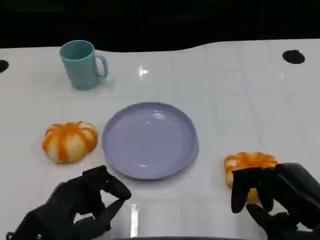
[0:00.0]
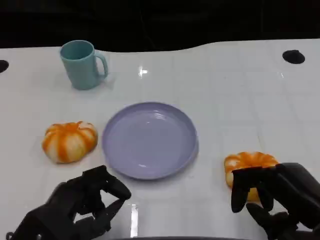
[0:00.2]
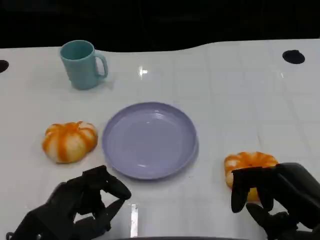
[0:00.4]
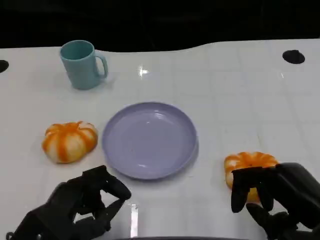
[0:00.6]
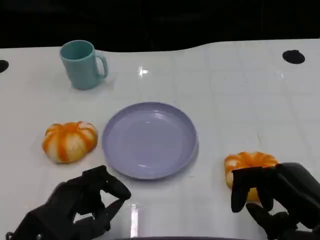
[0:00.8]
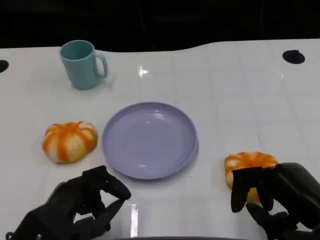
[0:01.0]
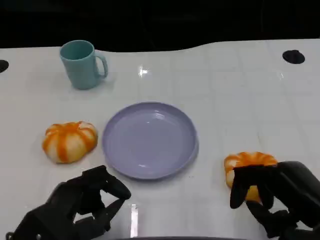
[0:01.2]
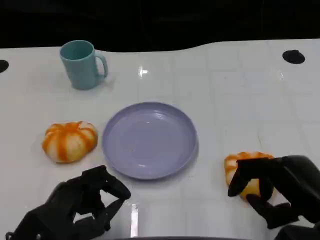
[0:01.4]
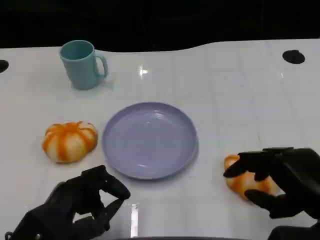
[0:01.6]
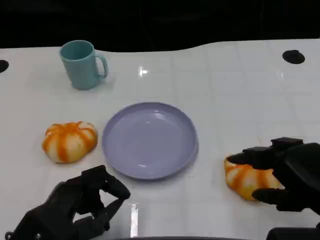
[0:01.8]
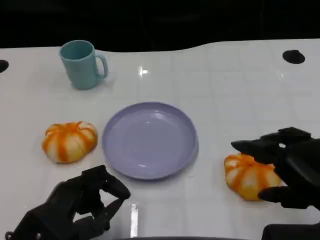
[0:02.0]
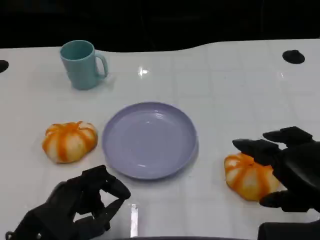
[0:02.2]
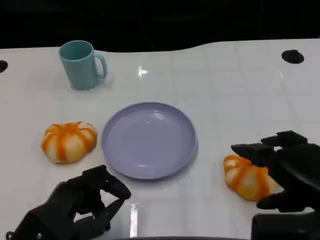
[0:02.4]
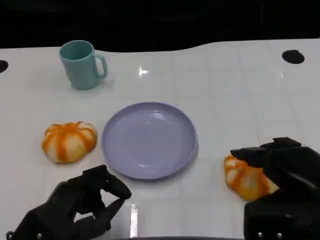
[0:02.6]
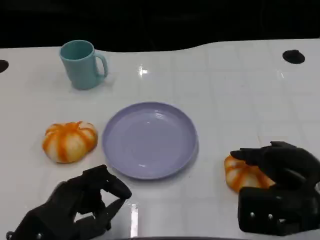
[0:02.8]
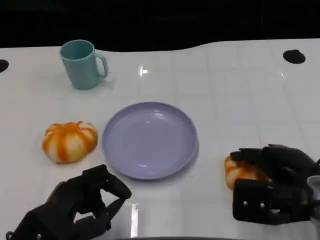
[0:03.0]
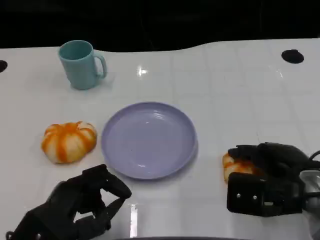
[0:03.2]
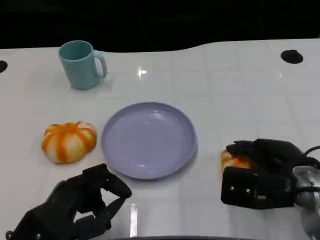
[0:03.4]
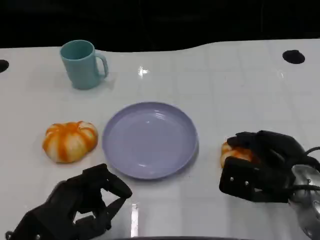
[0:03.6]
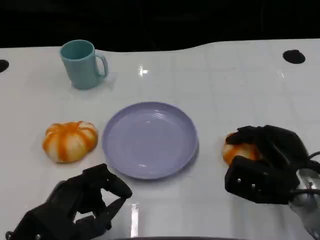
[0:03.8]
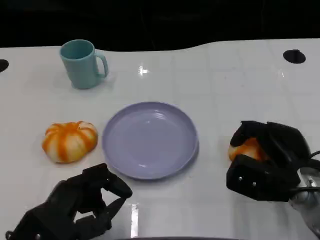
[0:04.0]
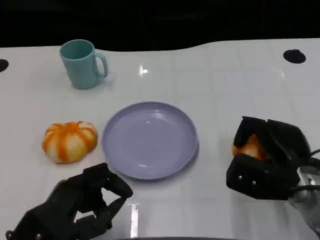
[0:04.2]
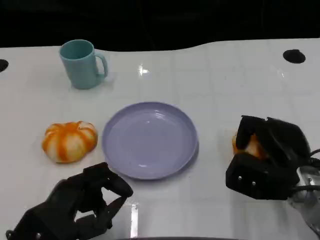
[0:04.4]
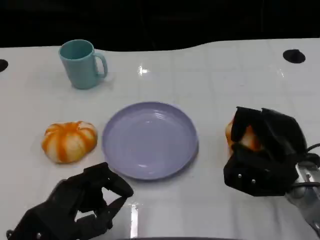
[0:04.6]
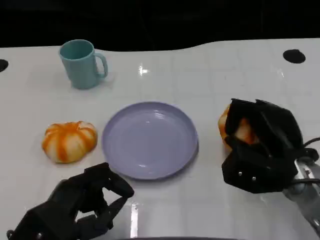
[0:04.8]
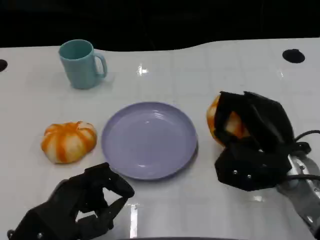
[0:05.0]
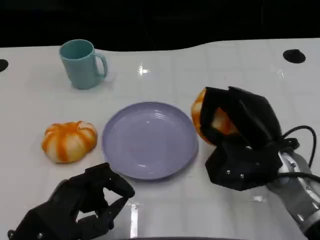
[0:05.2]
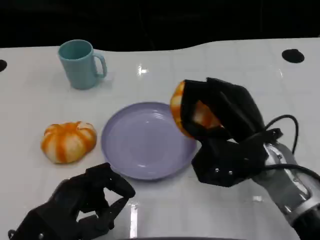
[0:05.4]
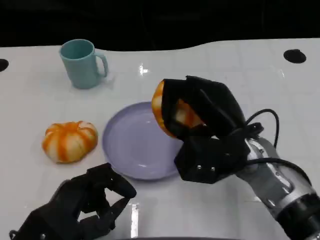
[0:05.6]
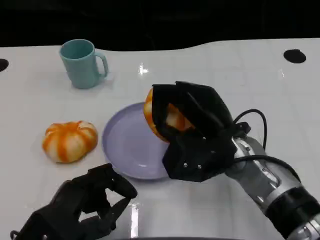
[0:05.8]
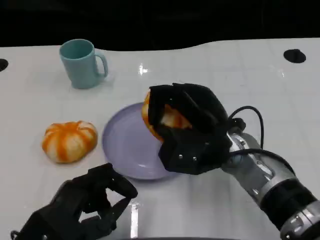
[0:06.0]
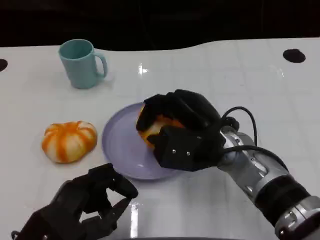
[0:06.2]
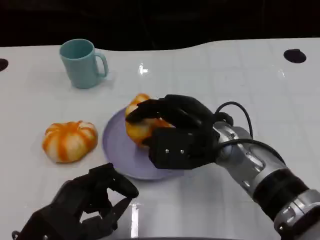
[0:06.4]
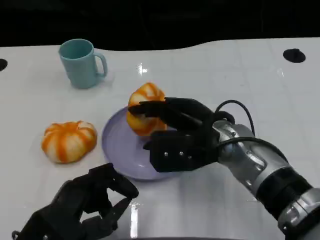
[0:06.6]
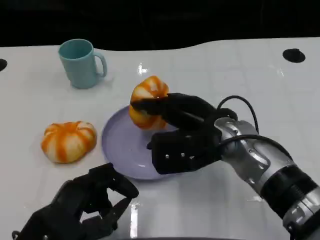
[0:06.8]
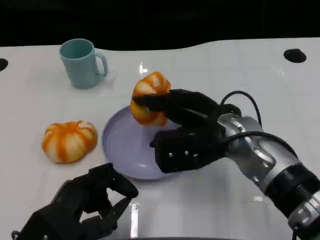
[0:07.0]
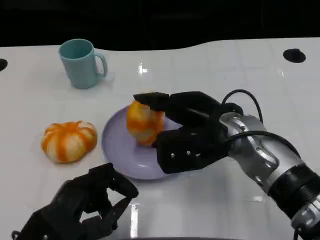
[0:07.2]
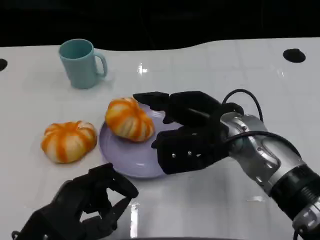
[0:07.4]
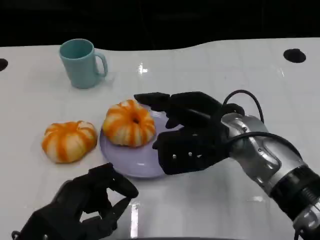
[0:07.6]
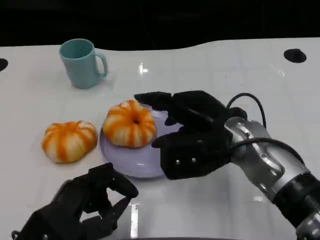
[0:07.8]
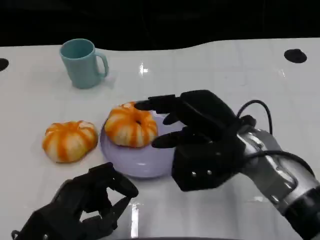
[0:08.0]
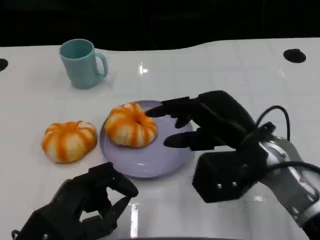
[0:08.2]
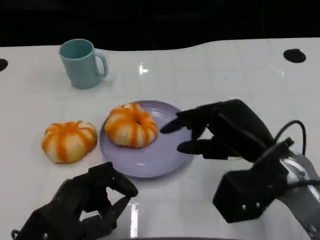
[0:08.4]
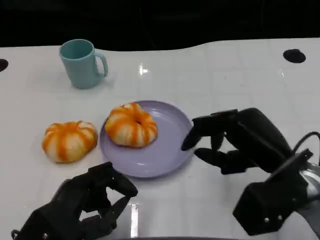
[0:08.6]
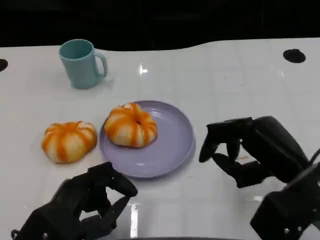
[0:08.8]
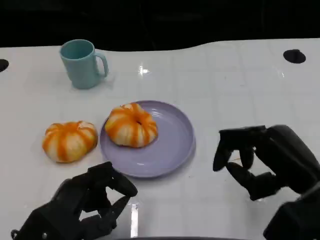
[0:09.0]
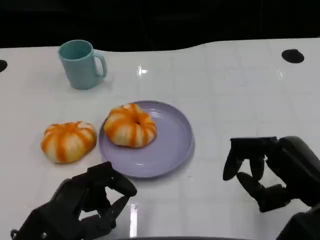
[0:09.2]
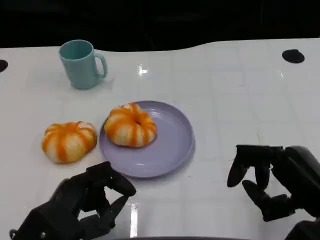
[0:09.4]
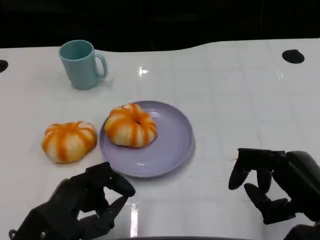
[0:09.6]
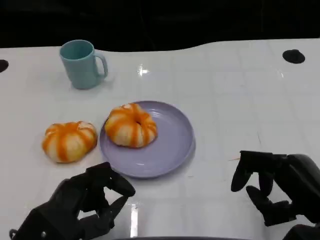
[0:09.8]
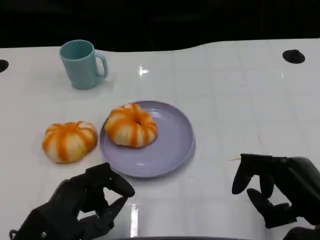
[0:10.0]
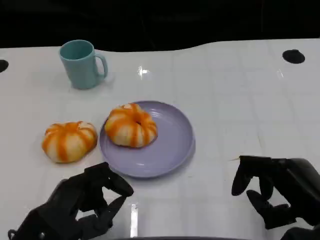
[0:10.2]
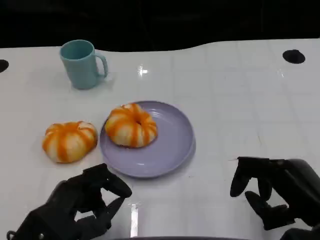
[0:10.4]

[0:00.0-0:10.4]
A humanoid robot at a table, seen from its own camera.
Task of the whole recording: Grasp the bread from the table and place it into the plate.
0.0 to 1.4 s: The hands move only a little.
1.4 to 3.0 s: The right hand heads forward, covering roughly 5 cm.
3.0 to 4.4 s: The right hand ends up roughly 5 cm from where it was.
4.4 to 6.0 s: The right hand heads to the left and upward, covering about 15 cm.
7.4 to 9.0 s: The right hand shifts about 15 cm to the right and backward.
9.0 to 10.4 s: There are only small adjustments of the hands.

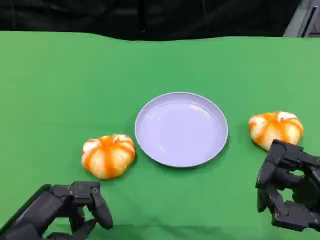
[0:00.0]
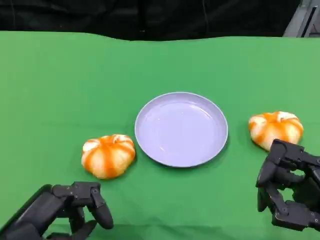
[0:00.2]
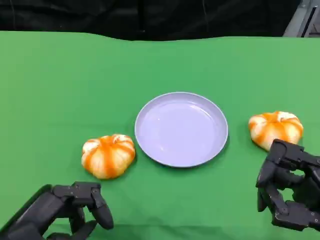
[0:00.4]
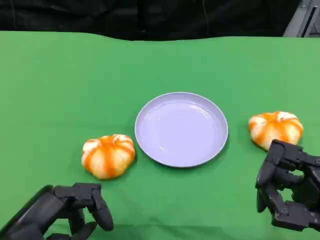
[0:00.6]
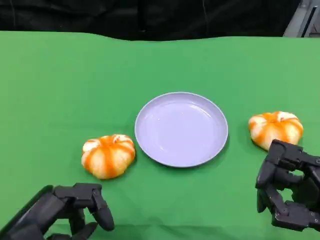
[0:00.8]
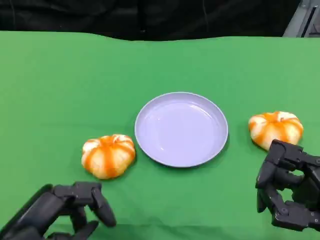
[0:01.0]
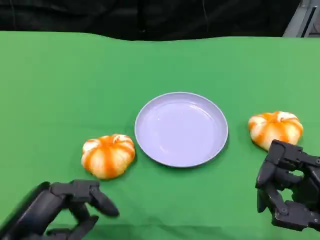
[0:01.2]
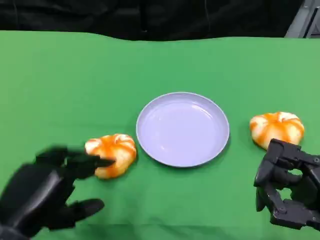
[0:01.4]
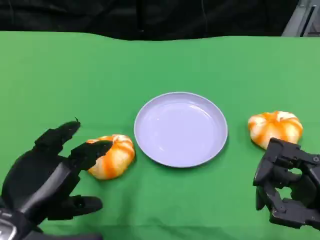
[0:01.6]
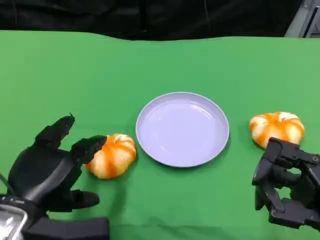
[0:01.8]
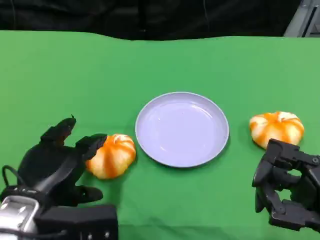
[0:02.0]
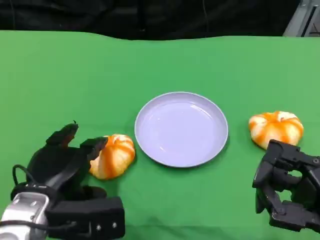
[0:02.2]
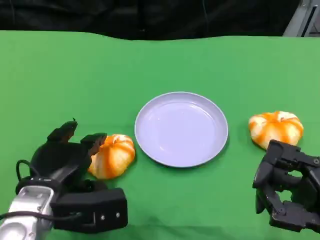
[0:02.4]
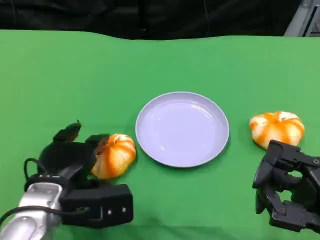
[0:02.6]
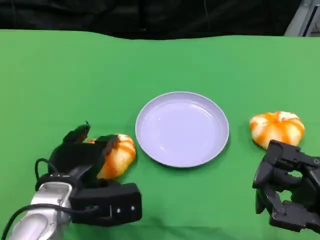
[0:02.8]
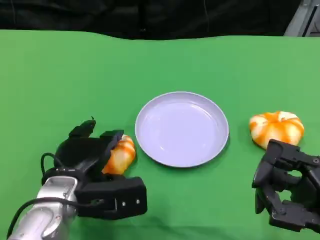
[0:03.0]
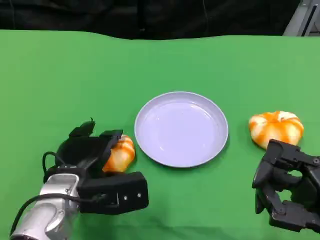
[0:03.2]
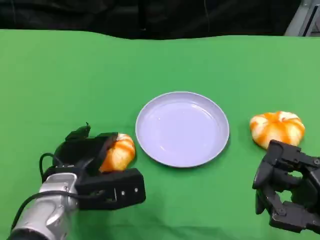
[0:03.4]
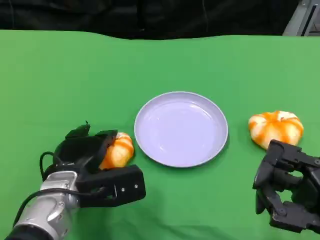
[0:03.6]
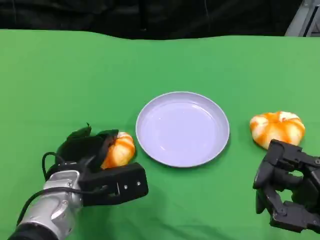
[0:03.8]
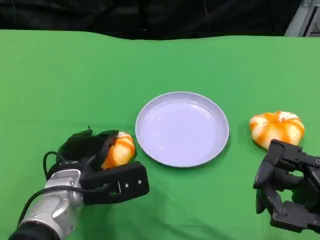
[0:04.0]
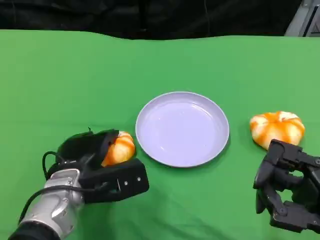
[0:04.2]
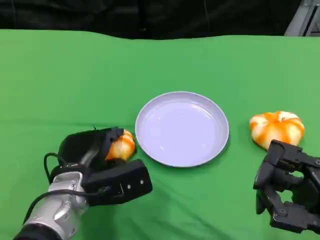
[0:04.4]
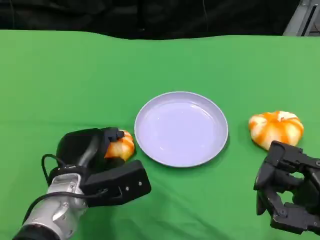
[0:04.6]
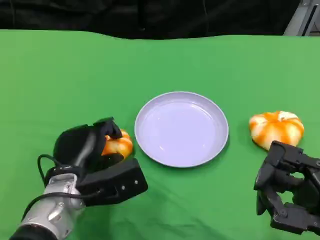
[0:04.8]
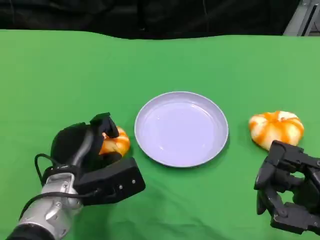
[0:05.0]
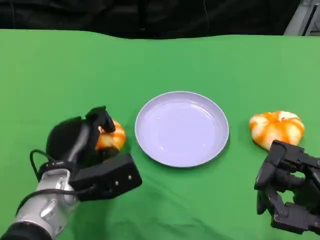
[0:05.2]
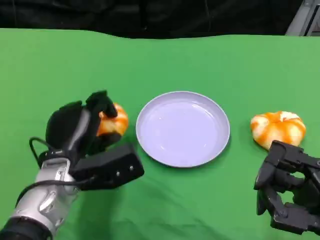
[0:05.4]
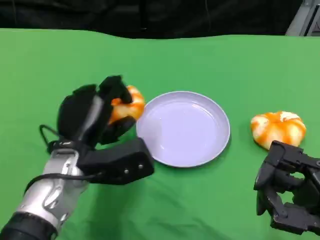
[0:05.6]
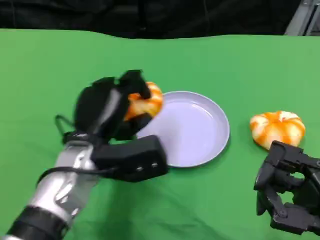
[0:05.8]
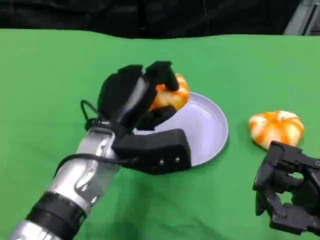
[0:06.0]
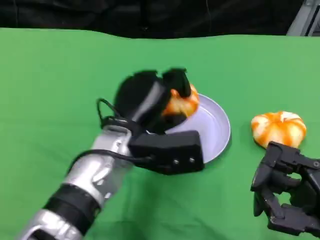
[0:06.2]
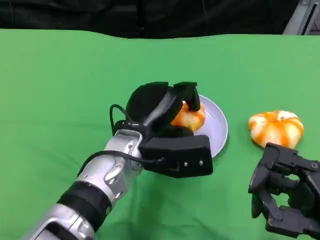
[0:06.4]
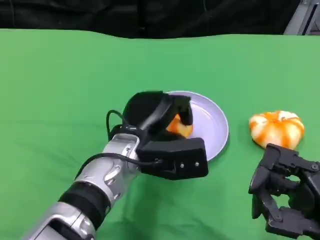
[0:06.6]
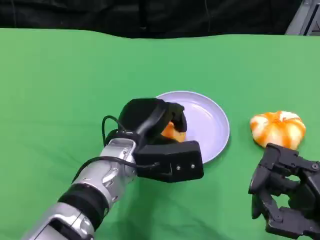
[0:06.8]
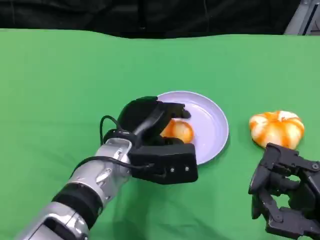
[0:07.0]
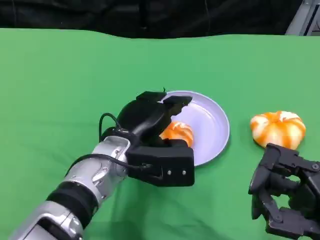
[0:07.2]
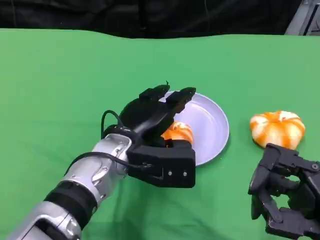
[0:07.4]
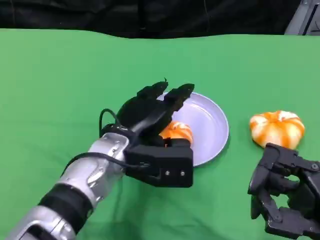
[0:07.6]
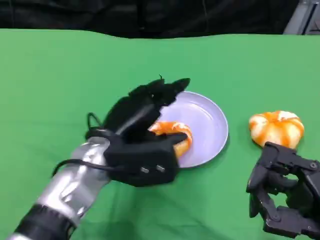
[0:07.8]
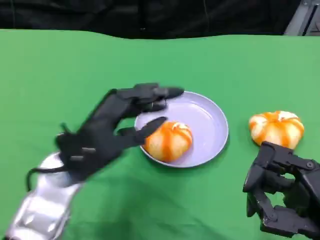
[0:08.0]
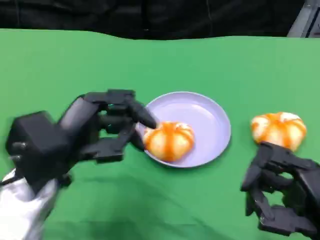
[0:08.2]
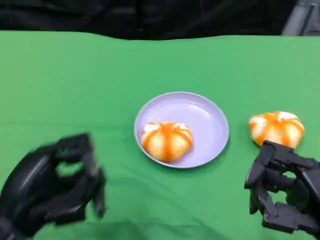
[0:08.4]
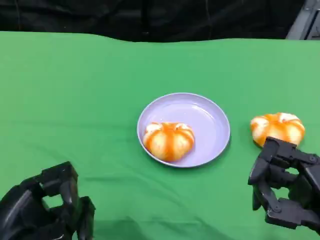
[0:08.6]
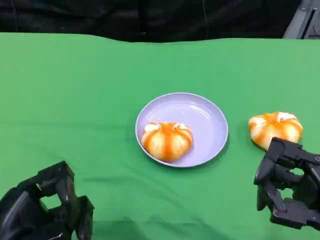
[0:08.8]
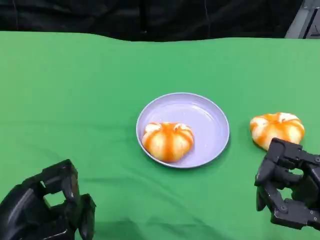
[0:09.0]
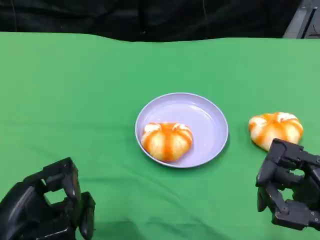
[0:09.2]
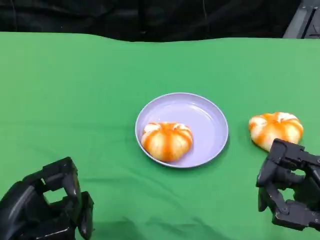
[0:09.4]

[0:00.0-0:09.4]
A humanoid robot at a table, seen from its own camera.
Task of the whole recording: Grasp the bread from the table and place it into the plate.
1.6 to 3.2 s: The left hand travels forward, to the right and downward by some 10 cm.
3.2 to 4.8 s: There are only small adjustments of the hands.
4.8 to 6.2 s: The left hand goes about 10 cm to the right and upward.
7.8 to 9.4 s: The left hand travels backward and to the left by some 20 cm.

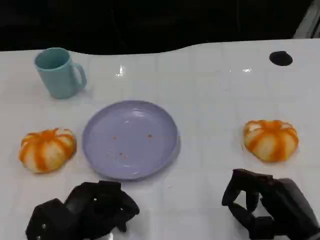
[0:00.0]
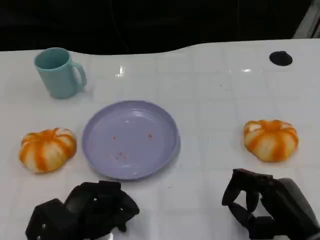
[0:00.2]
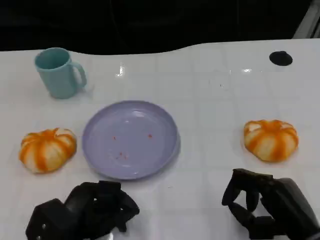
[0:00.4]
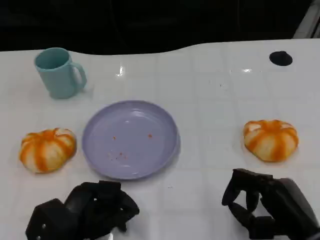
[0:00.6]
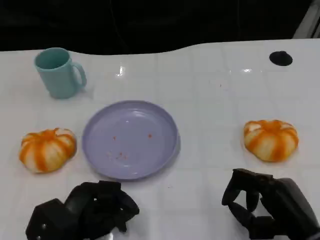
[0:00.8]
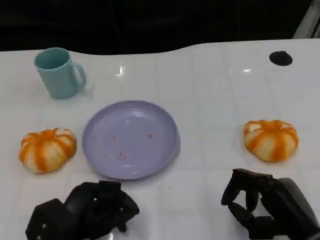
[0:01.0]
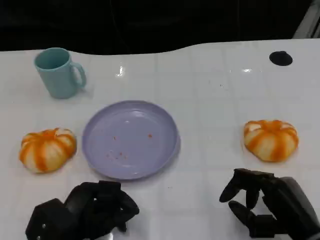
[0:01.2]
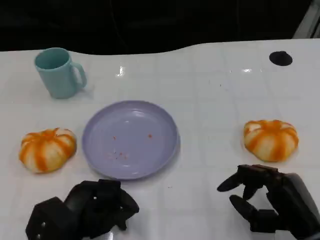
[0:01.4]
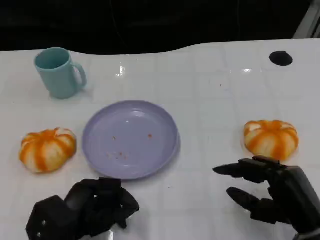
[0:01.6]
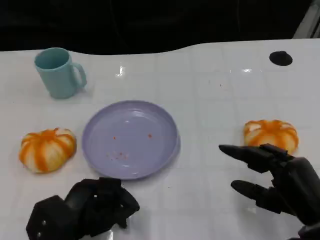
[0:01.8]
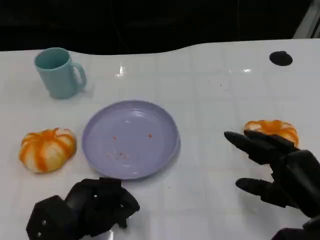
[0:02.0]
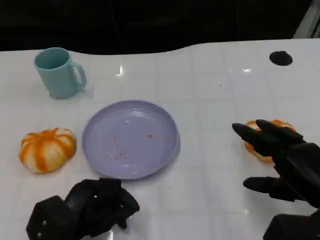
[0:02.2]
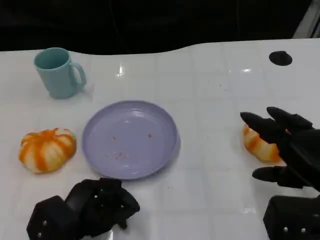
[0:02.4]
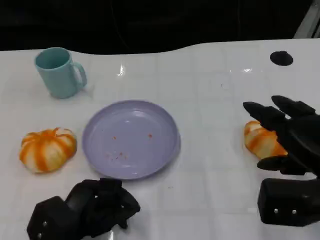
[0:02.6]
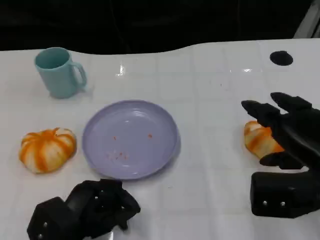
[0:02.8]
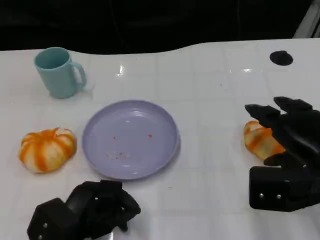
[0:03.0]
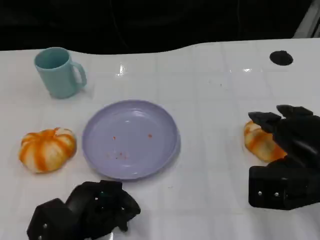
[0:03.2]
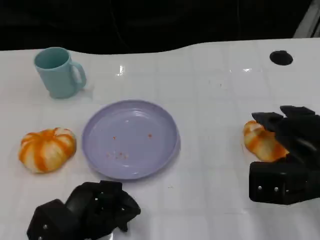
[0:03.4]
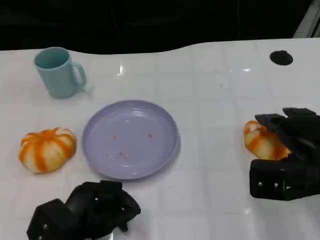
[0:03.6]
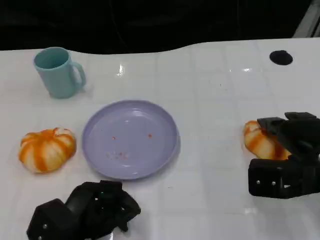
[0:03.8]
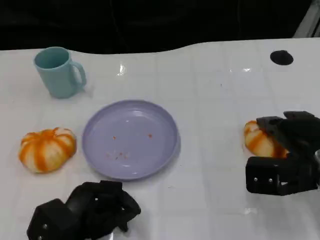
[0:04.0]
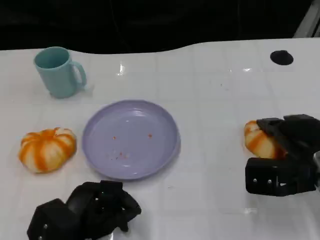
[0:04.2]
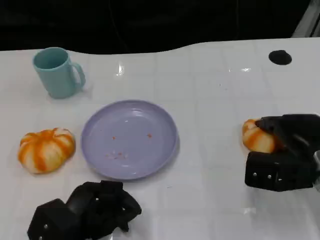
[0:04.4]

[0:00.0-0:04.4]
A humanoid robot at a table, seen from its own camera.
Task of the whole recording: Grasp the bread from the table and place it into the plate.
0.0 to 1.4 s: The hands make only small movements.
1.4 to 3.0 s: The right hand is displaced upward and forward by approximately 10 cm.
3.0 to 4.4 s: The right hand is displaced downward by some 5 cm.
